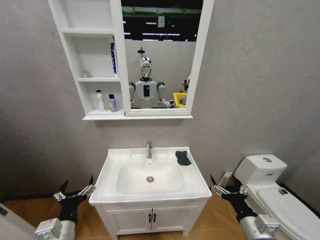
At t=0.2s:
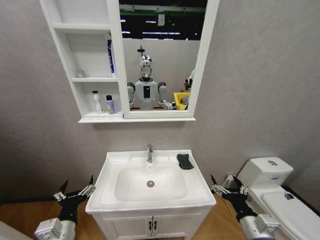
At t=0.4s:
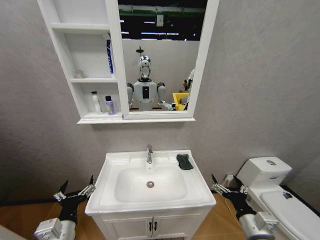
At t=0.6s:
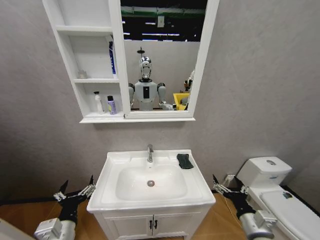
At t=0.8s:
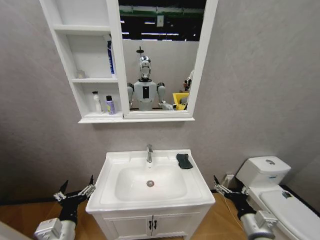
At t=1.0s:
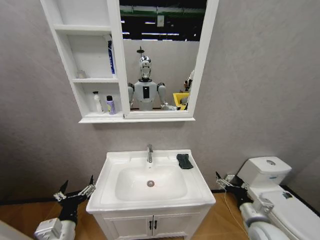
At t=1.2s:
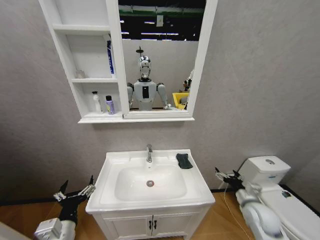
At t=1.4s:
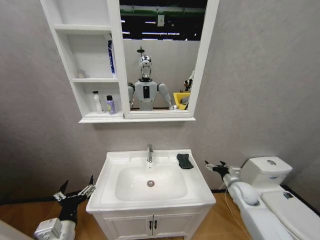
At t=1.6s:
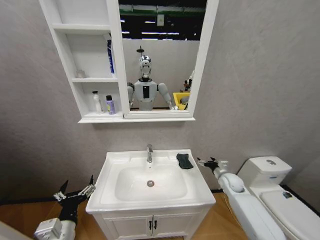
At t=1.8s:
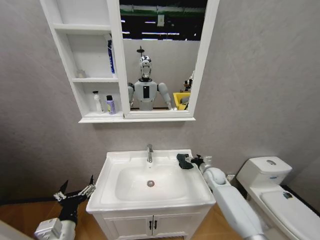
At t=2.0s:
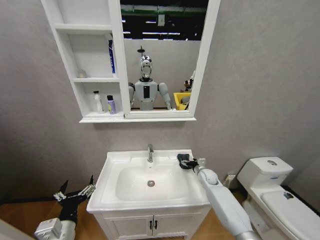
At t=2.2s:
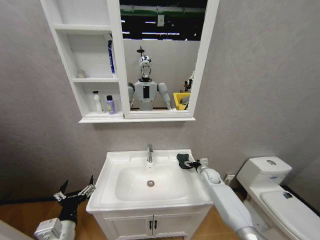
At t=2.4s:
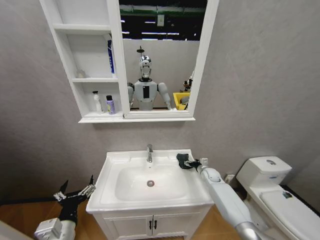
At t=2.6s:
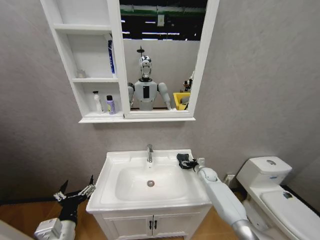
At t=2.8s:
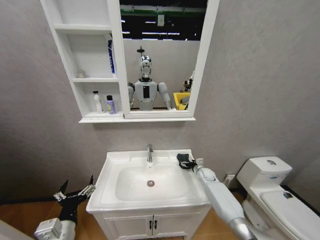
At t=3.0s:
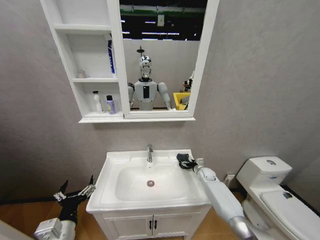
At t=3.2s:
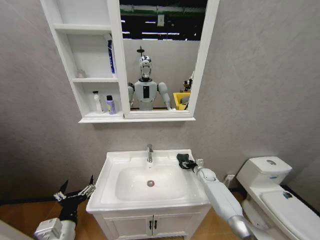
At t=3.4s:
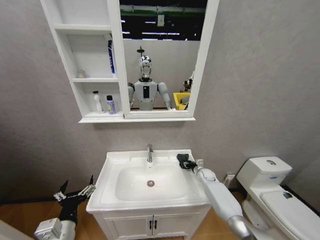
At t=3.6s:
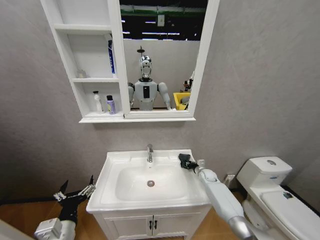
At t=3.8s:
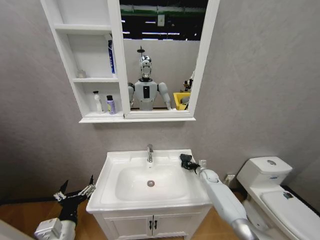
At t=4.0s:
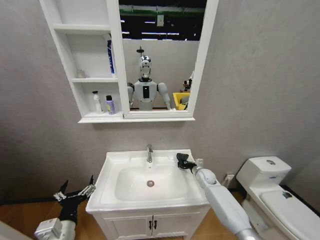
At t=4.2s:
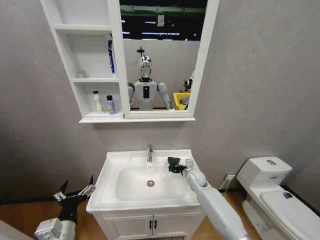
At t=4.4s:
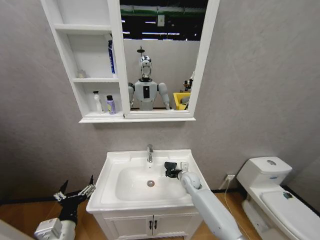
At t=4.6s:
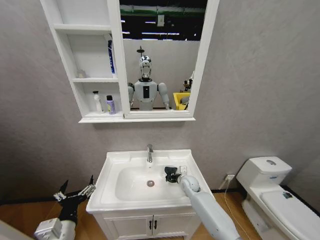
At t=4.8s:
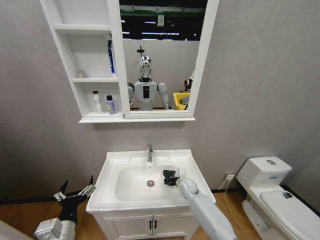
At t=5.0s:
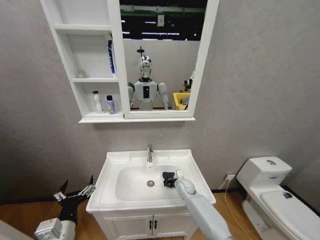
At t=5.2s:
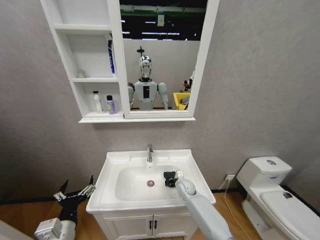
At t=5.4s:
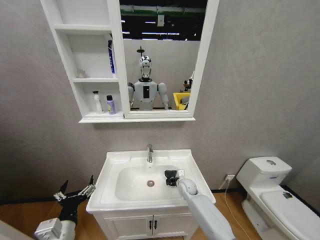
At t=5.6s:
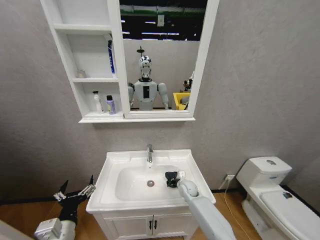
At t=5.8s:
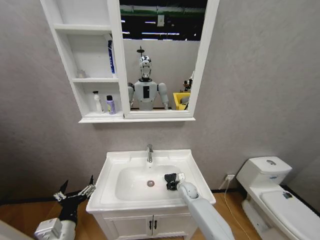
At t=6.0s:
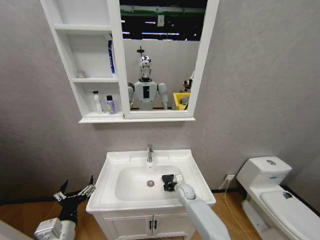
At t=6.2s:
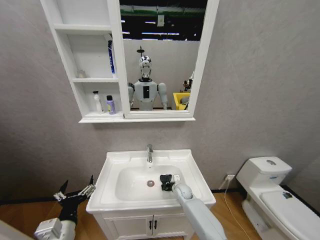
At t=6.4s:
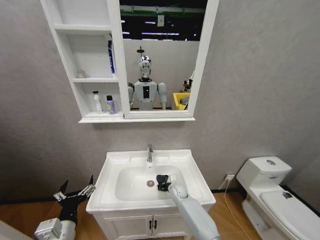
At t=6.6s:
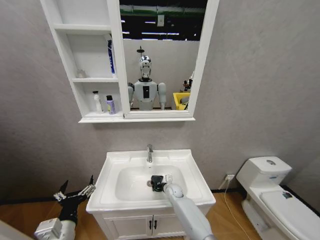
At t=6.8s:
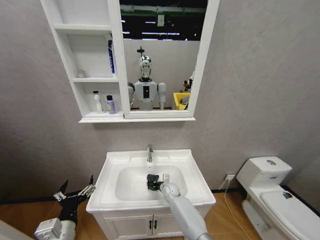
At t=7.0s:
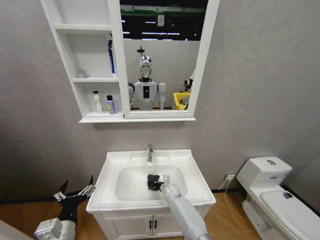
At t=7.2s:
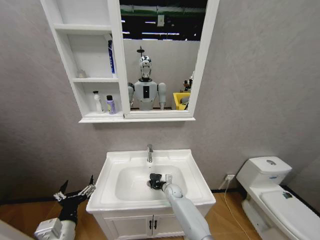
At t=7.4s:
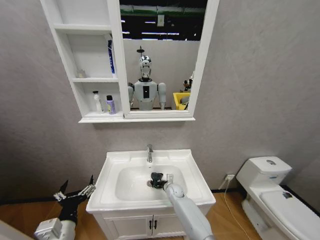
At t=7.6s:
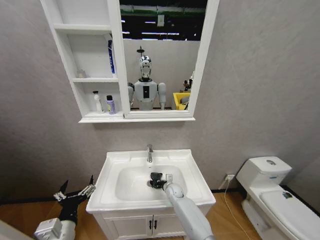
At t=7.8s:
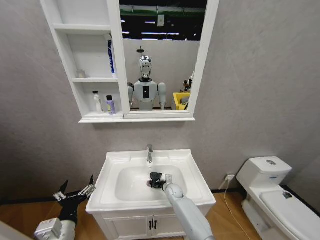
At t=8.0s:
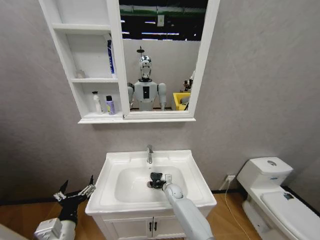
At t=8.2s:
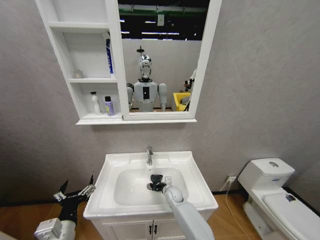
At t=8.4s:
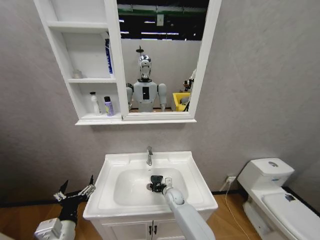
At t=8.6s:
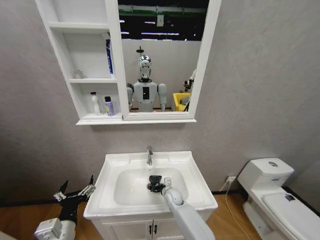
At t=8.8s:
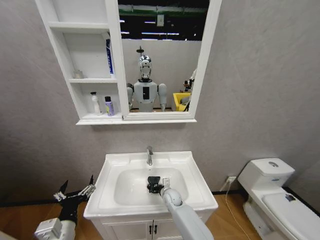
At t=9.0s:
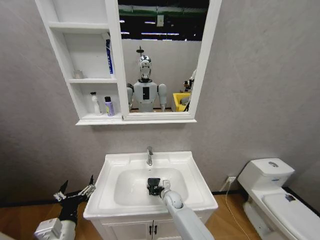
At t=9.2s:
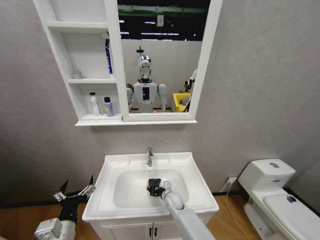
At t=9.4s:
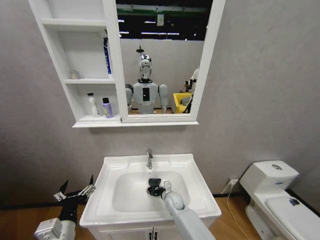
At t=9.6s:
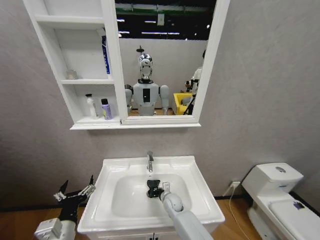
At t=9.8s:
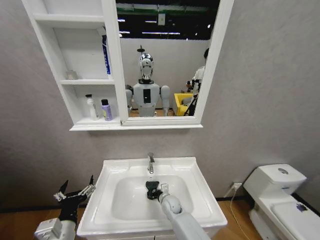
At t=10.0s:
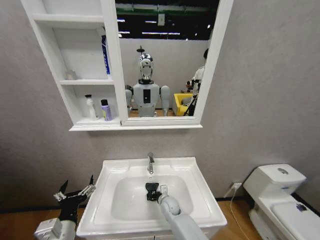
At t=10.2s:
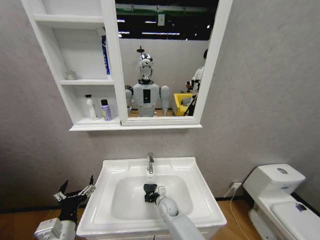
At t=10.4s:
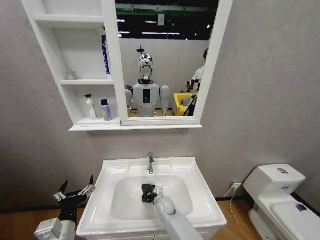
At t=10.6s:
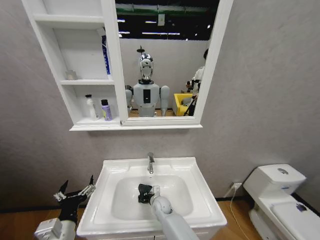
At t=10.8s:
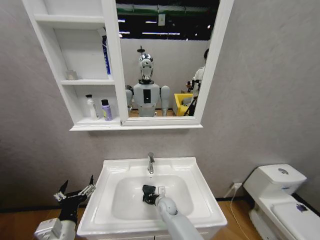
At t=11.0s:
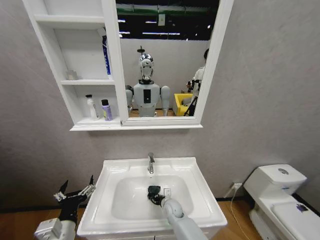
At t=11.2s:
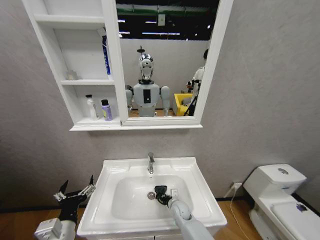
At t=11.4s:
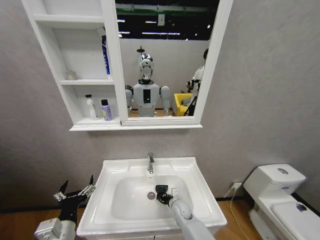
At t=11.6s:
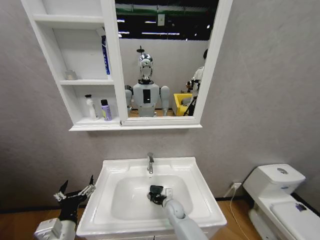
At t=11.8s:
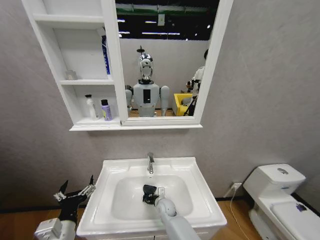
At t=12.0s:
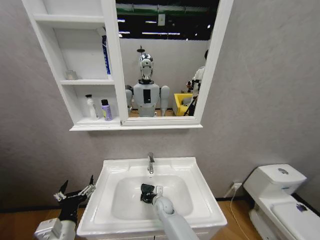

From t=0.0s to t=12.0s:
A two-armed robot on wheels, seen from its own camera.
Task of the whole recording: Move facial cleanser and shampoo from washbasin to cabinet, then wipe washbasin with towel.
From t=0.0s to t=1.6s: The right gripper is displaced forward by some 30 cm.
From t=1.6s to t=3.0s: The right gripper moves forward, downward and to the left, some 10 cm.
From t=3.0s to t=4.4s: The right gripper shifts about 15 cm to the left and backward, and closes up.
From t=4.4s to t=6.0s: The right gripper travels downward by some 10 cm.
From t=6.0s to t=7.6s: The right gripper travels to the left by some 5 cm.
From t=7.6s to t=9.0s: The right gripper travels backward by roughly 5 cm.
From t=9.0s to t=10.4s: The right gripper moves roughly 5 cm.
From t=10.4s to t=12.0s: The right gripper travels to the right and back again, about 10 cm each way.

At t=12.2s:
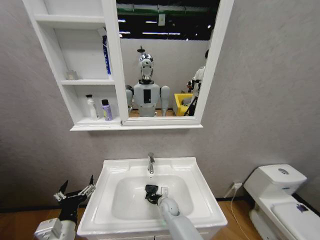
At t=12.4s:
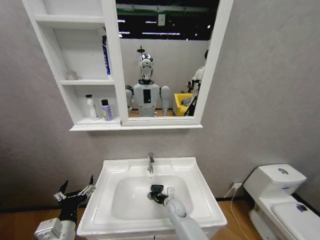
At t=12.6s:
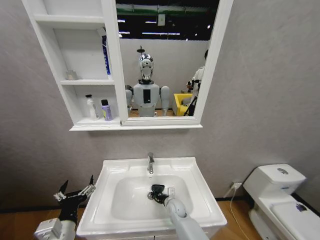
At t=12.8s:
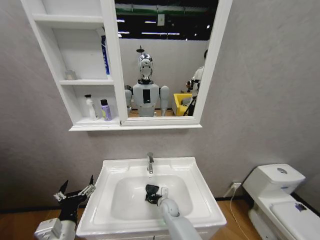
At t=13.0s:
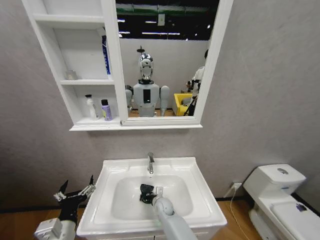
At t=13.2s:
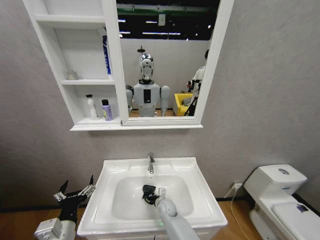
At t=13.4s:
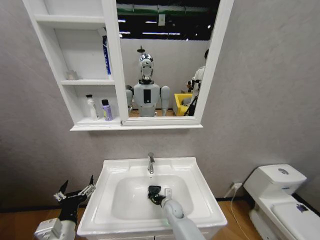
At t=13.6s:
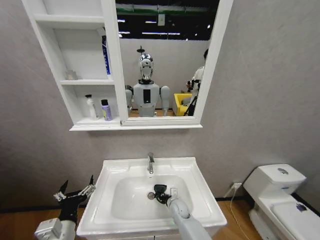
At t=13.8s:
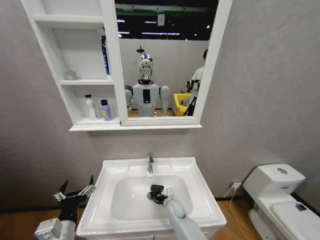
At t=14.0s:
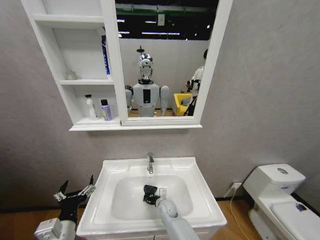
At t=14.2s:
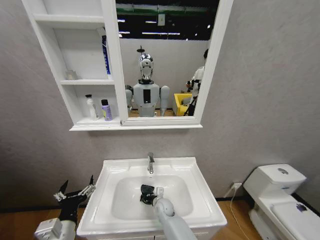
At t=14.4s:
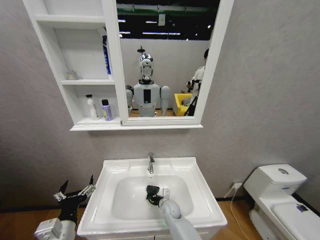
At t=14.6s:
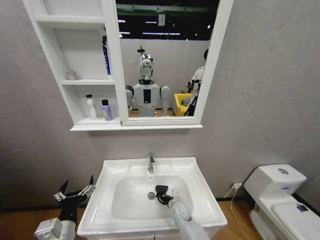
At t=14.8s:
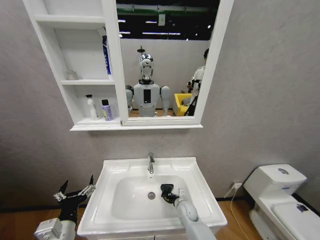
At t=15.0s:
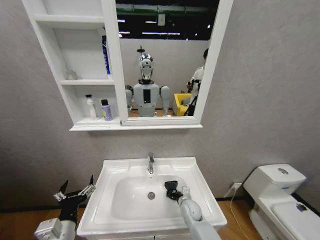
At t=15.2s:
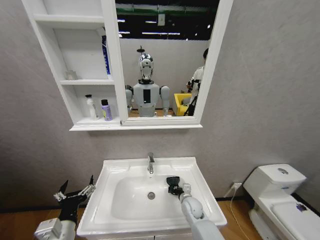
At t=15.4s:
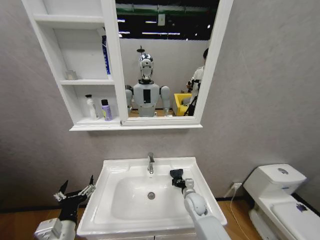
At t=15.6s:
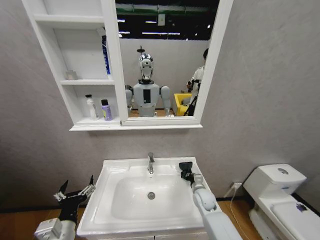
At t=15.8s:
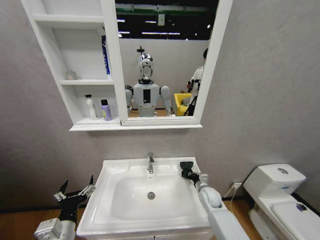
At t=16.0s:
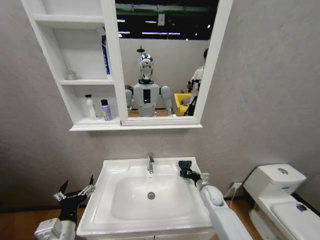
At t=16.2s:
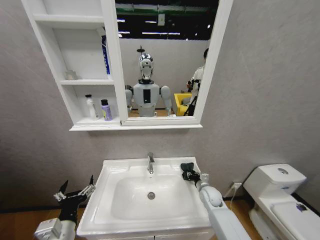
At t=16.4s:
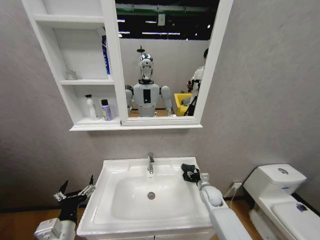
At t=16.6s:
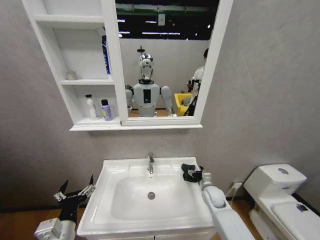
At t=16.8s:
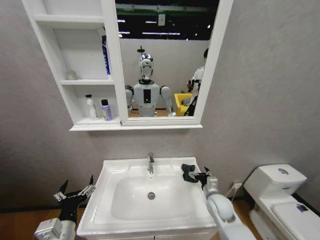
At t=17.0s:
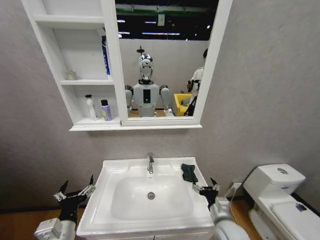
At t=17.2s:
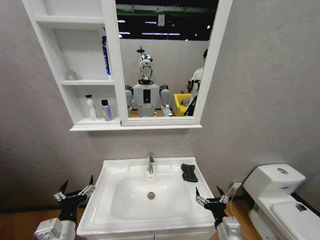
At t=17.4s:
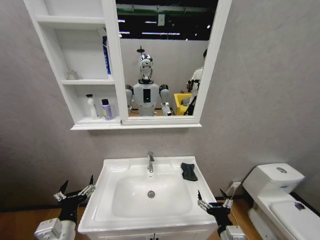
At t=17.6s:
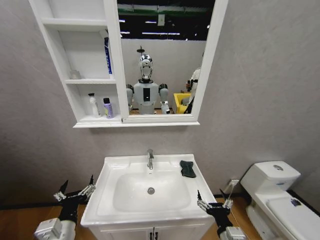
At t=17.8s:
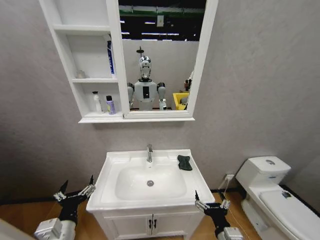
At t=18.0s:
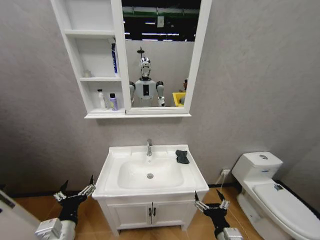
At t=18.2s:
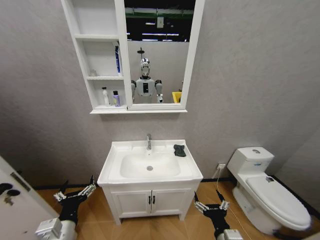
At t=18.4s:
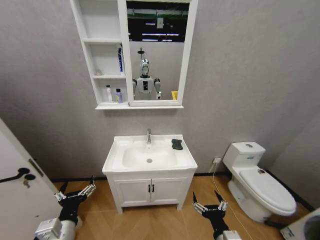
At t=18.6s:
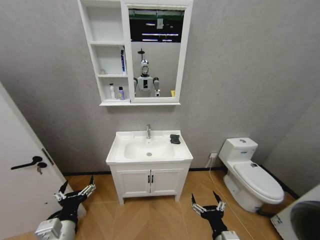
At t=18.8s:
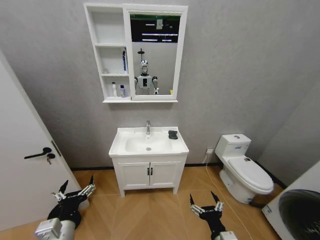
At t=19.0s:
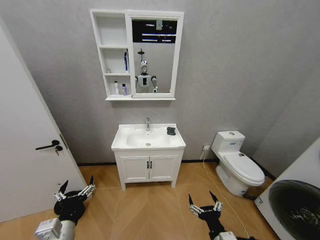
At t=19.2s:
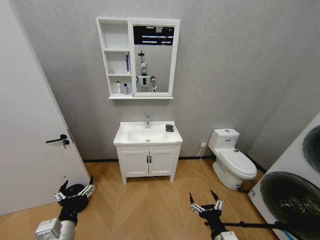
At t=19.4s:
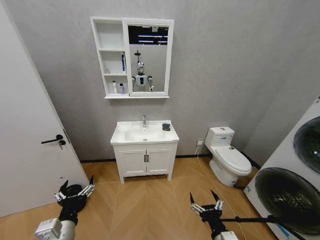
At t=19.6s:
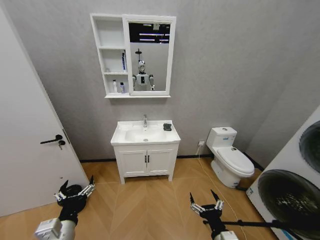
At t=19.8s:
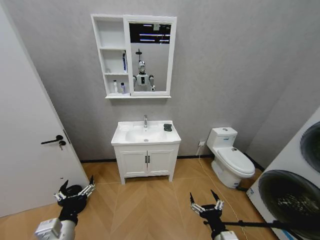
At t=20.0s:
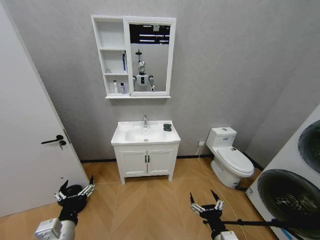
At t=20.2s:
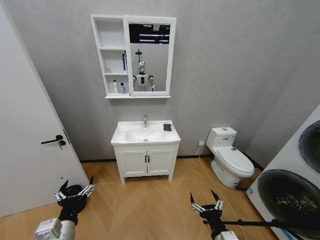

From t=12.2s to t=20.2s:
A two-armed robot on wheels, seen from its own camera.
Task of the whole recording: Move facial cleanser and shampoo from washbasin to cabinet, then wipe washbasin with towel.
From t=12.2s to t=13.8s: The grippers make only small movements.
From t=13.8s to t=15.4s: The right gripper goes approximately 10 cm to the right and upward.
From t=15.4s to t=17.0s: The right gripper is displaced backward, to the right and upward by approximately 15 cm, and opens up.
From t=17.0s to t=18.6s: The right gripper moves backward, some 10 cm.
